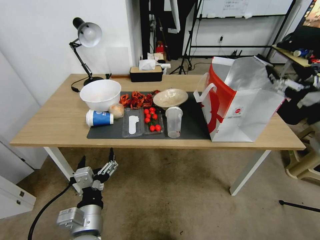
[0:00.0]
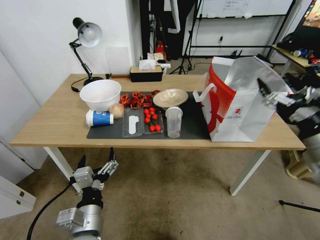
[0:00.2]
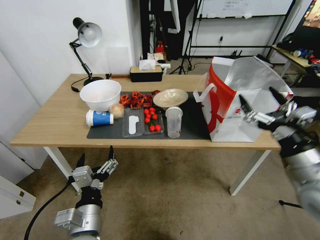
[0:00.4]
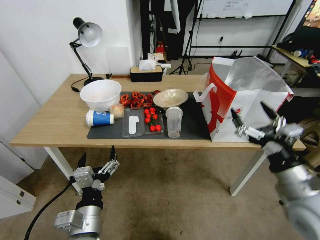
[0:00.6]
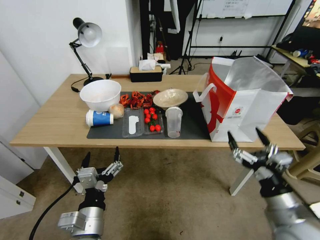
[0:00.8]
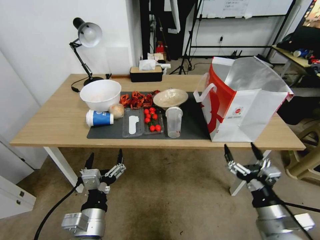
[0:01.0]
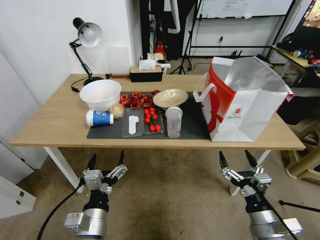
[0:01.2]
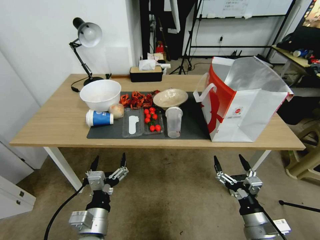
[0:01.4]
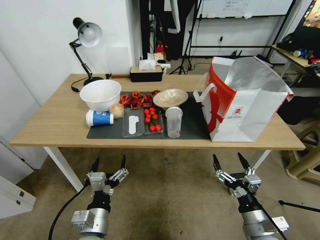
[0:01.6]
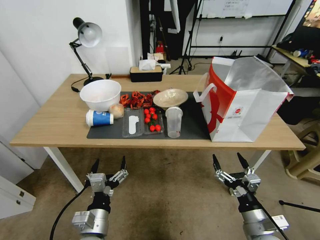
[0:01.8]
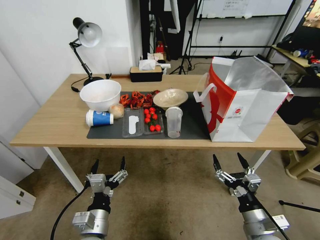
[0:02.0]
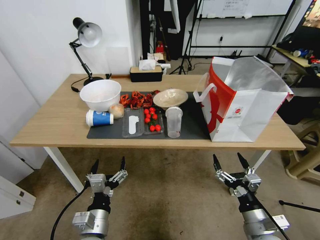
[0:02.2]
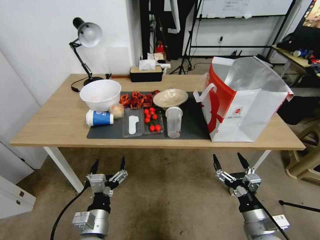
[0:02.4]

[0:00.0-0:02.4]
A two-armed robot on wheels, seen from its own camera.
Task of the whole recording: Pick up the food delivery bag from the floor and place it on the table.
0:00.0 to 0:01.2: The right gripper heads downward, backward and to the left, covering roughly 30 cm.
0:01.2 to 0:02.4: The grippers stay close to where they were, moving slightly.

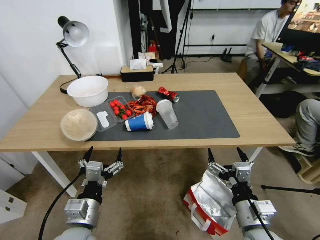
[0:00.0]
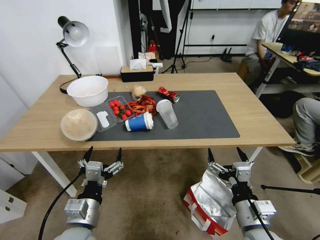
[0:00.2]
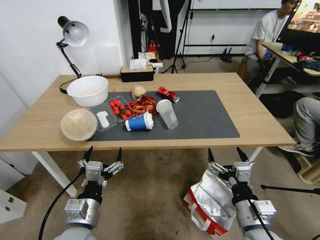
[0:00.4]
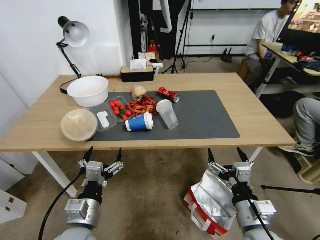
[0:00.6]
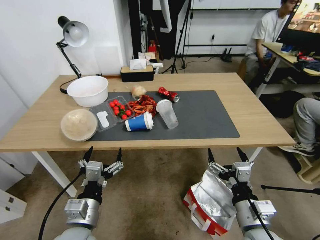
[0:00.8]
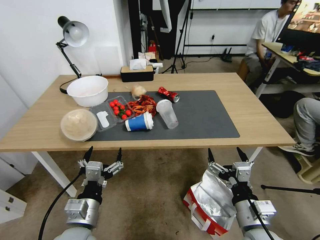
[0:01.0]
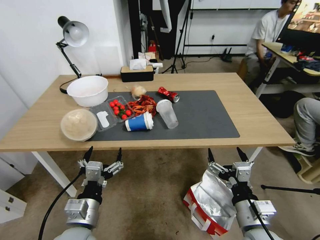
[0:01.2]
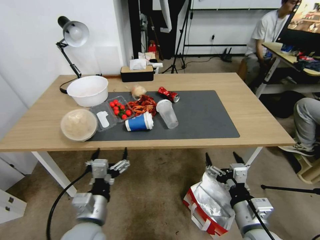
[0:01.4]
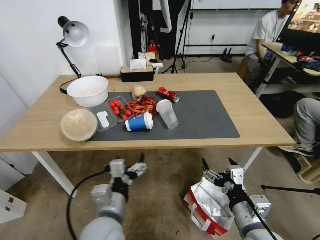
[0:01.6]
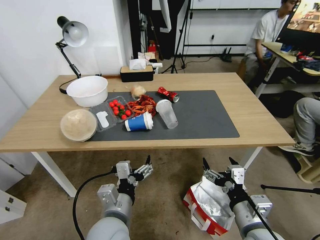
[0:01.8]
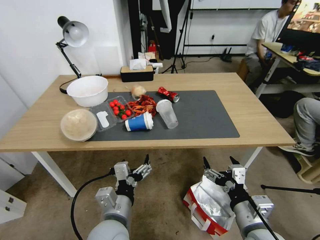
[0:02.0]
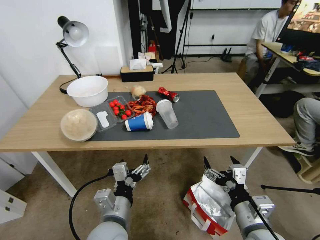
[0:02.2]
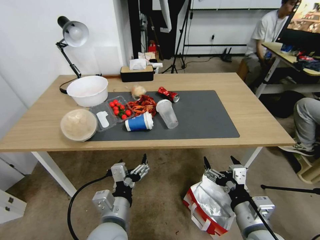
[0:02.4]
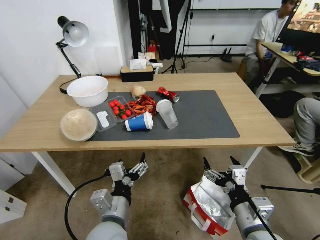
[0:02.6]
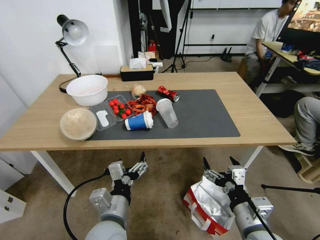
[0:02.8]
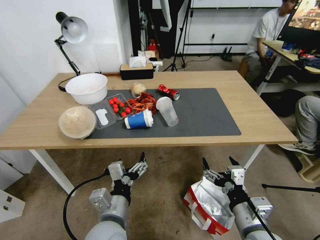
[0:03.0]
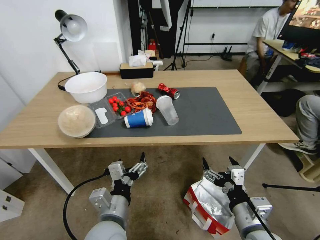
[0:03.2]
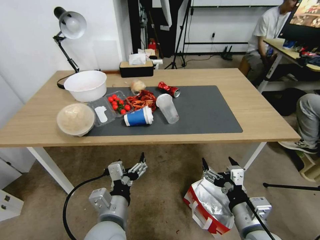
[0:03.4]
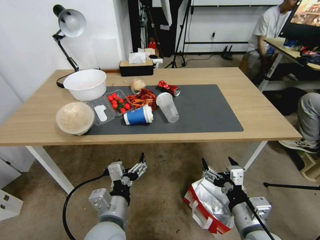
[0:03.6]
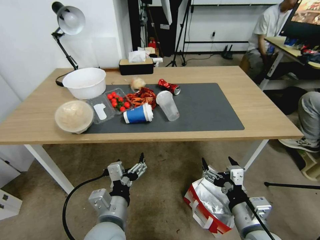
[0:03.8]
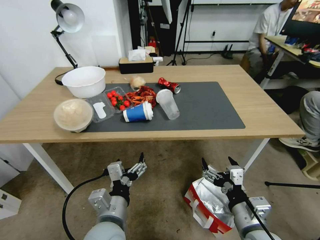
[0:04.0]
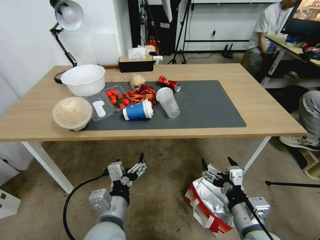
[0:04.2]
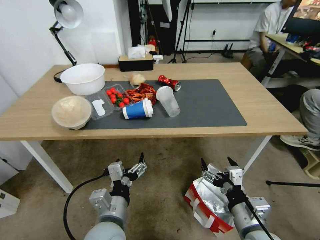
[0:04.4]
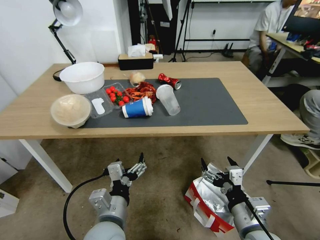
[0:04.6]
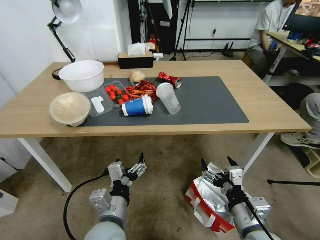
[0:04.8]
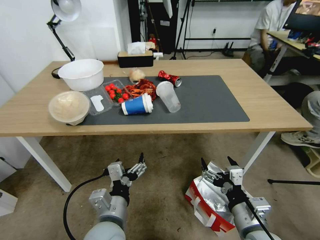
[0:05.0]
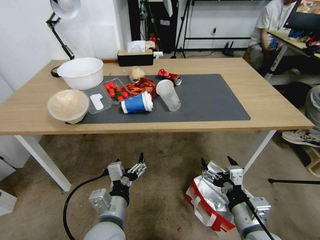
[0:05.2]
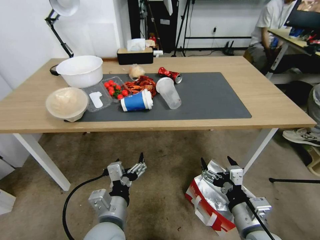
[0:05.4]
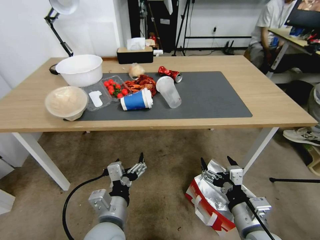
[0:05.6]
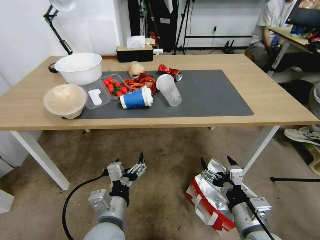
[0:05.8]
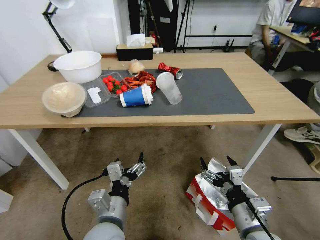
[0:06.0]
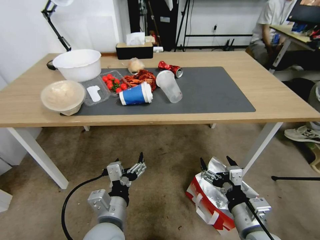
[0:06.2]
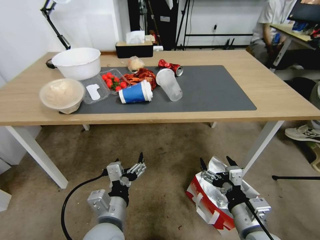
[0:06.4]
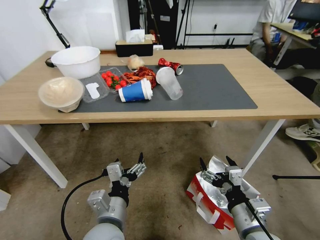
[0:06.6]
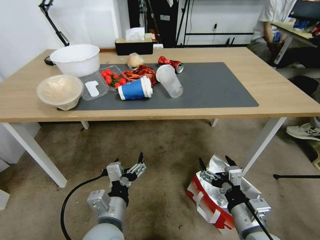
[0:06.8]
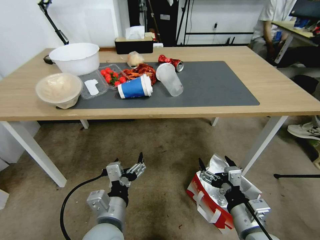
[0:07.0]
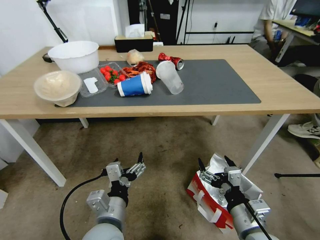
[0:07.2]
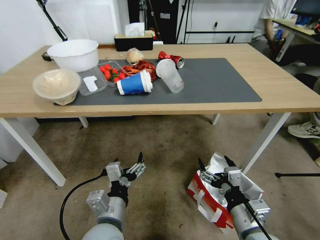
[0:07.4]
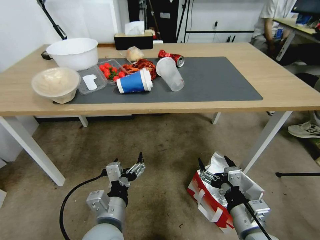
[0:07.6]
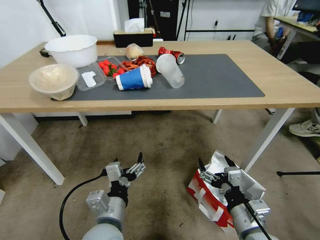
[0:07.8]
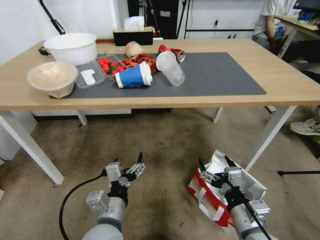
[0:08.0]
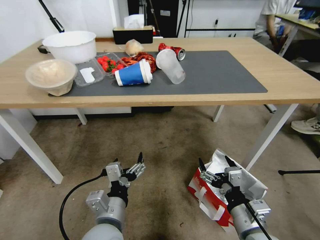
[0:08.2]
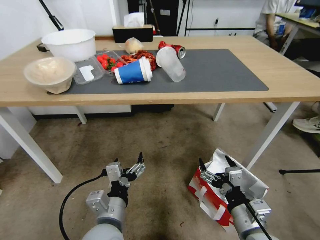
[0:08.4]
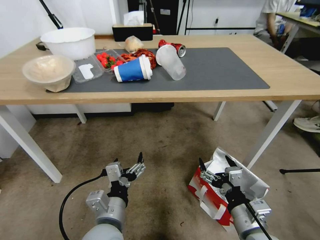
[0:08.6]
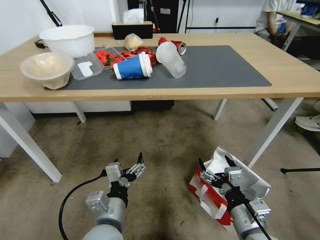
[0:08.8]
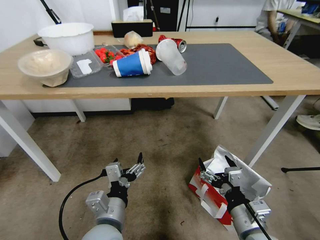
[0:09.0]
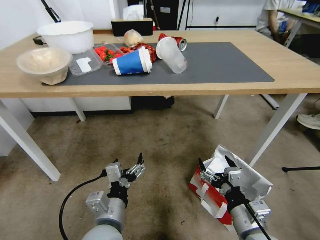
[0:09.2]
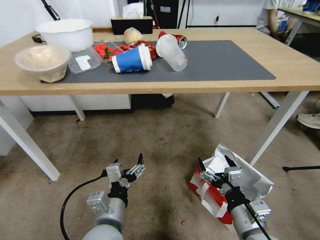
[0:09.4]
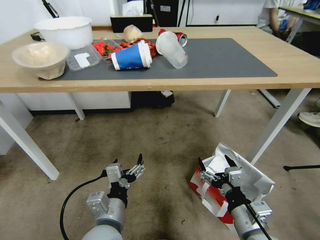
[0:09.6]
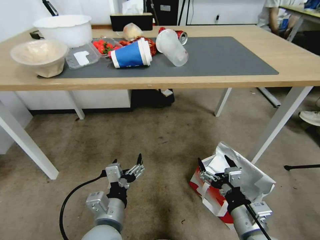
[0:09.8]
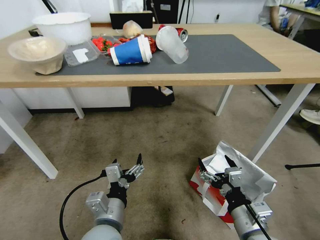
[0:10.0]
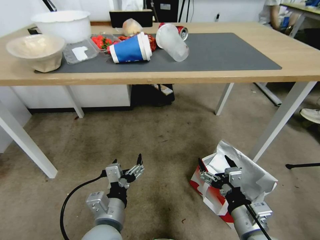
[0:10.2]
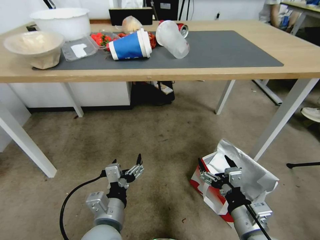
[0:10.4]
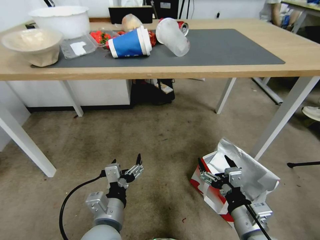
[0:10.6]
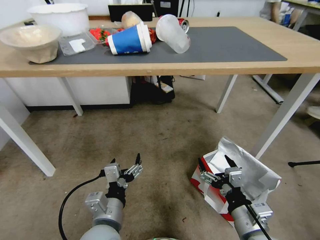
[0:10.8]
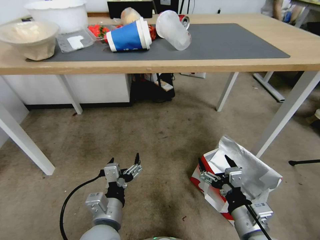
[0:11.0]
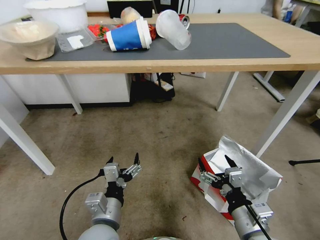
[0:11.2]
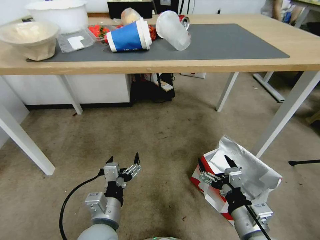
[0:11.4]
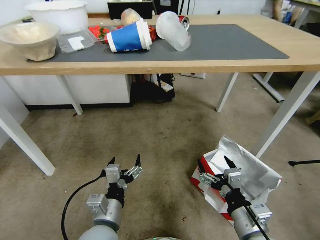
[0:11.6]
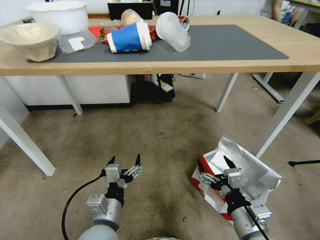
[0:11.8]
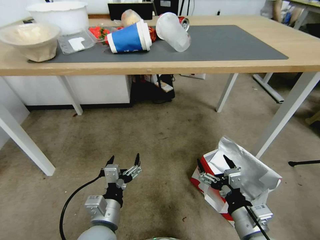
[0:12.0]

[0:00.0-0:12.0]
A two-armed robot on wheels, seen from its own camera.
Task of the whole recording: Pick up the food delivery bag from the floor and place it on the table.
0:01.6 to 0:03.0: The grippers make only small movements.

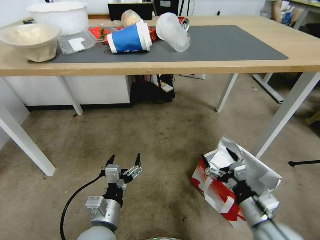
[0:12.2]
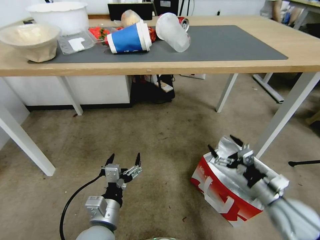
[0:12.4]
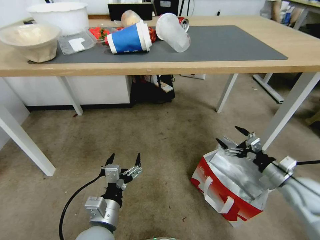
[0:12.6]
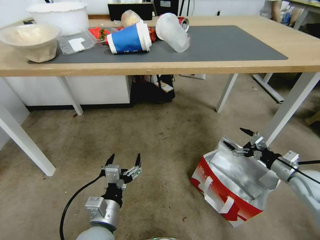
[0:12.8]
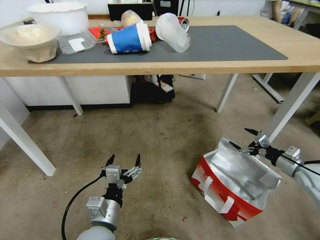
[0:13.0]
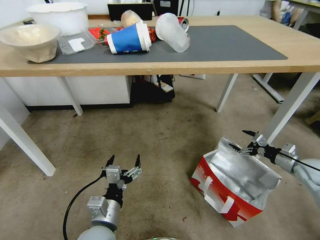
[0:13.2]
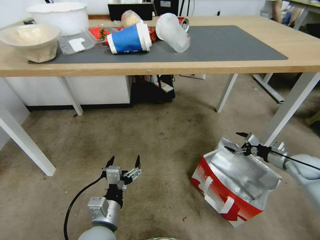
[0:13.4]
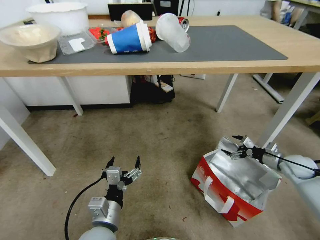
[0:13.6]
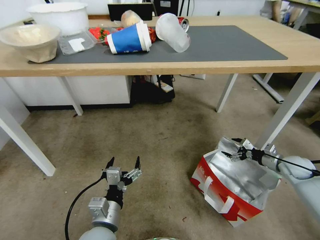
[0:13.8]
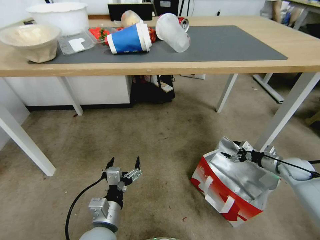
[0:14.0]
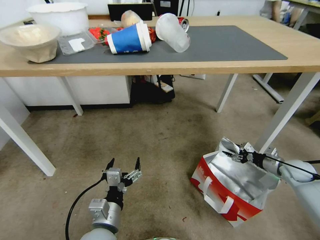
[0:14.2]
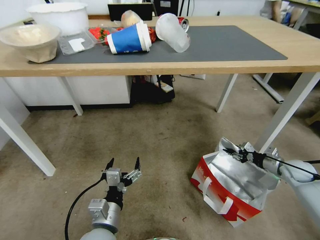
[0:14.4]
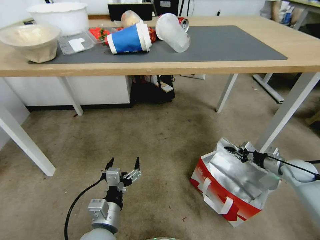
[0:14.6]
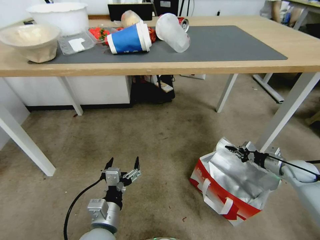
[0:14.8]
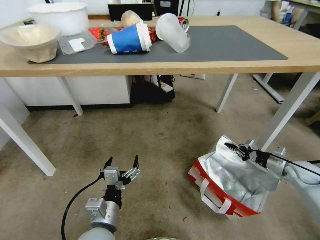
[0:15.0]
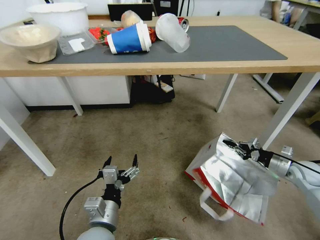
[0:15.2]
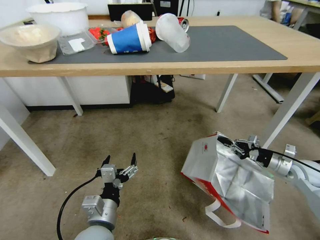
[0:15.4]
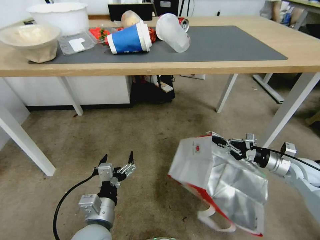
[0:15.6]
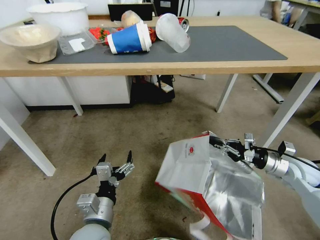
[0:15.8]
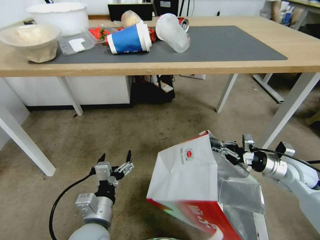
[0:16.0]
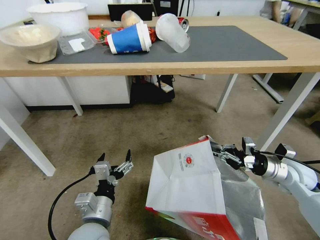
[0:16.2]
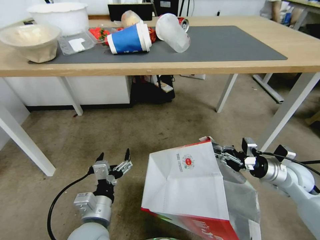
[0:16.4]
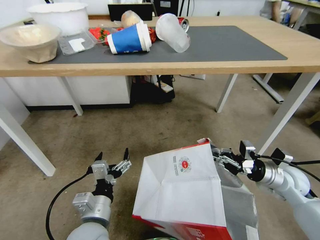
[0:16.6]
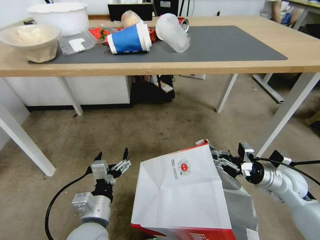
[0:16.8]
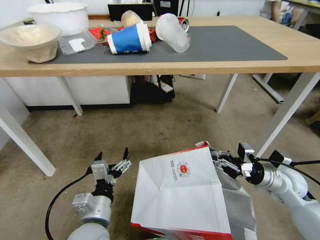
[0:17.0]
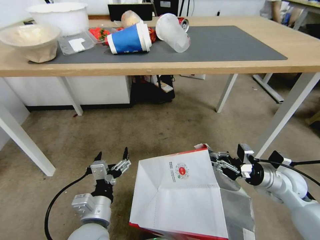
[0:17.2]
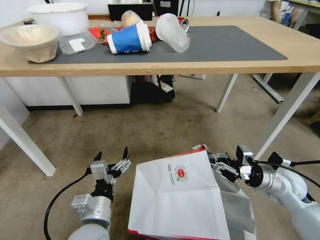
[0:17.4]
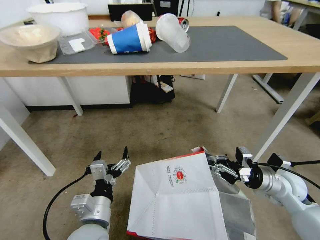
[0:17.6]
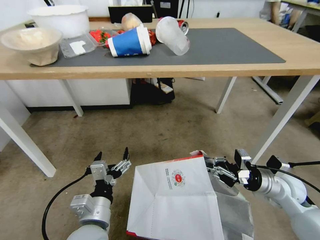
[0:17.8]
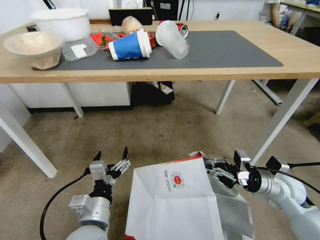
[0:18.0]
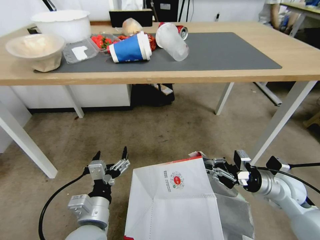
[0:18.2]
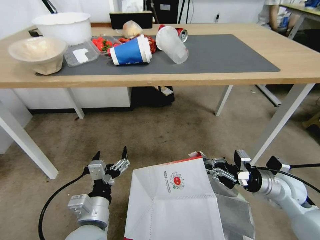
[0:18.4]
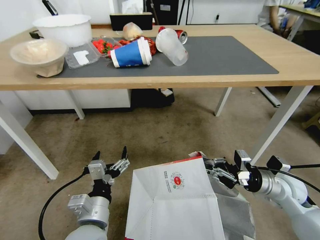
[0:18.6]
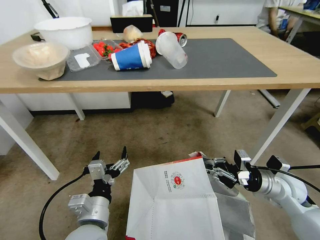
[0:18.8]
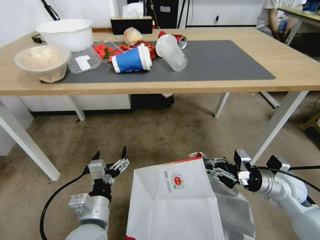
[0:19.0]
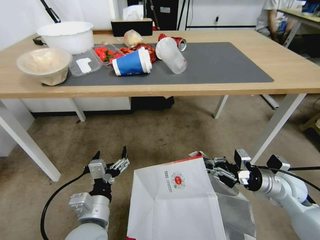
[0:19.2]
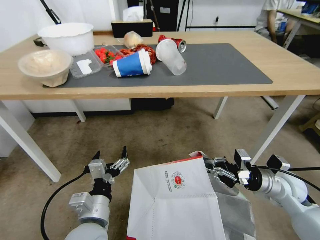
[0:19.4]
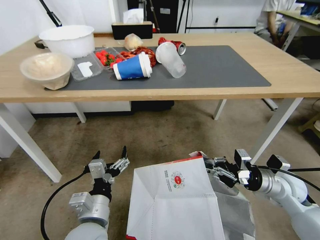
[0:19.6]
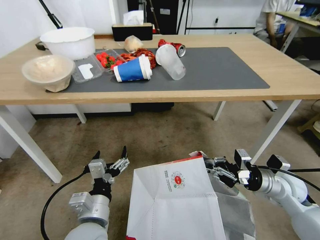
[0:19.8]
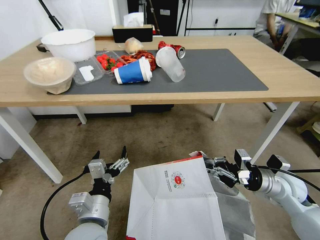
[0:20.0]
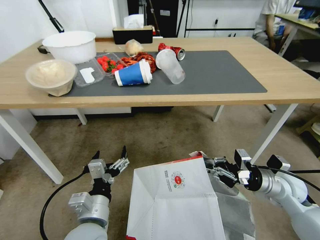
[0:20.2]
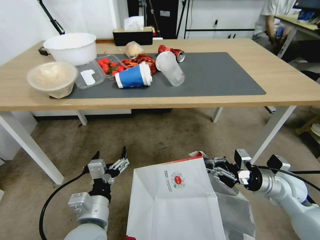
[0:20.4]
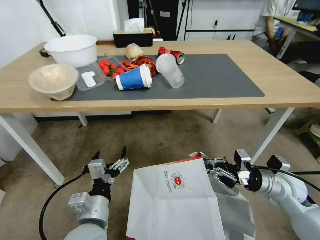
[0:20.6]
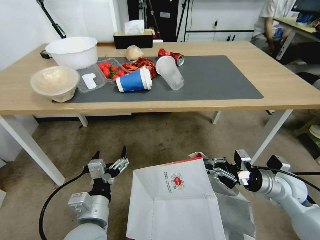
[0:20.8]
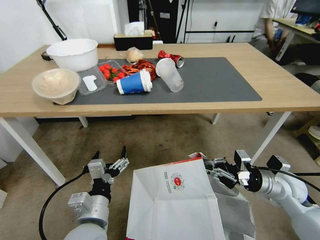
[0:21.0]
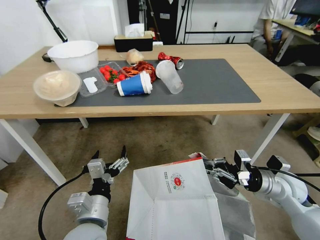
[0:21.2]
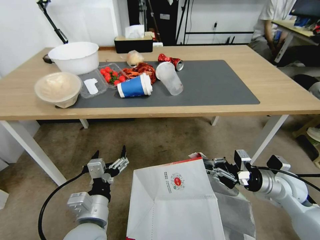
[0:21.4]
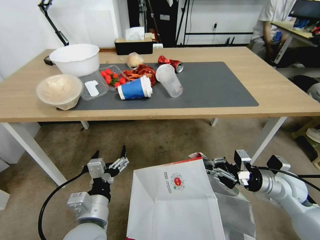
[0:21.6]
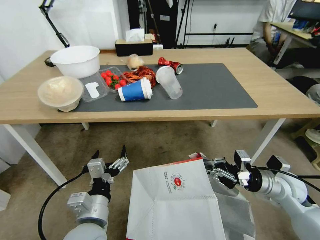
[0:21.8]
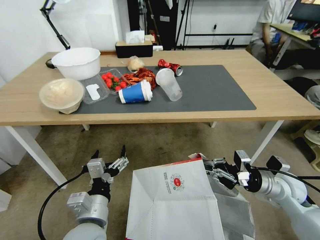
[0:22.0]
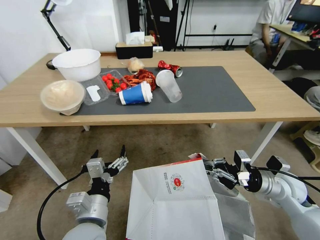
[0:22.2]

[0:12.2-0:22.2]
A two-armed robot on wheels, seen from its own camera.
Task of the whole recording: Pick up the food delivery bag from the floor and place it on the table.
0:12.2 to 0:13.6: The right gripper moves to the right and forward, about 30 cm.
0:13.6 to 0:15.0: The right gripper closes its fingers.
0:15.0 to 0:16.4: The right gripper shifts approximately 15 cm to the left and upward.
0:16.4 to 0:18.0: The right gripper changes place by about 5 cm.
